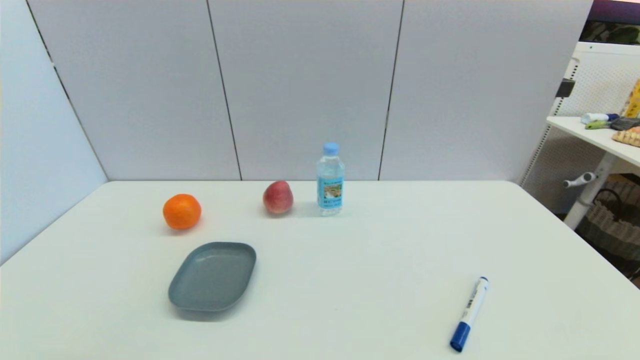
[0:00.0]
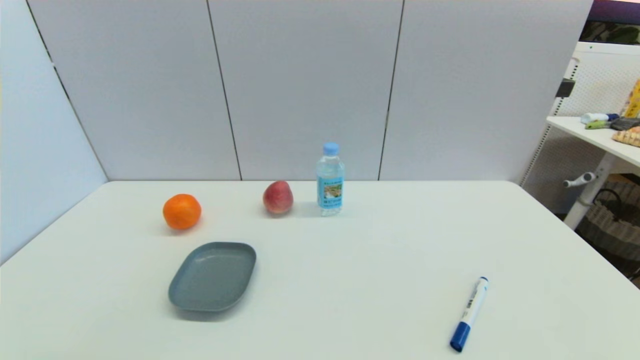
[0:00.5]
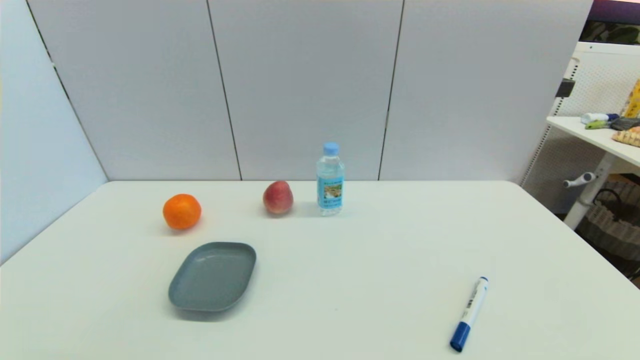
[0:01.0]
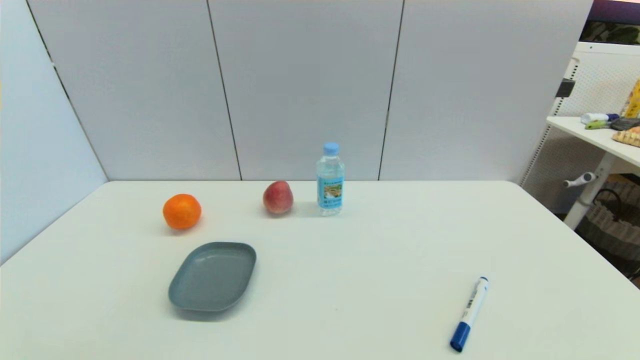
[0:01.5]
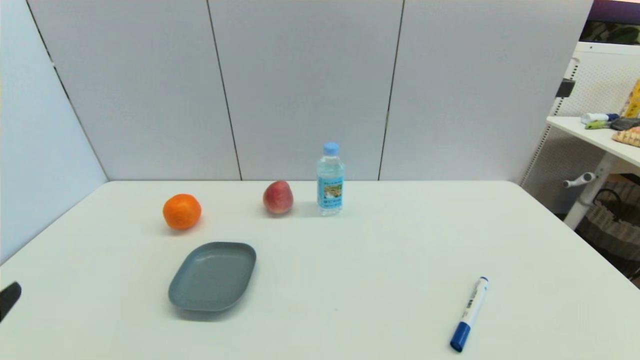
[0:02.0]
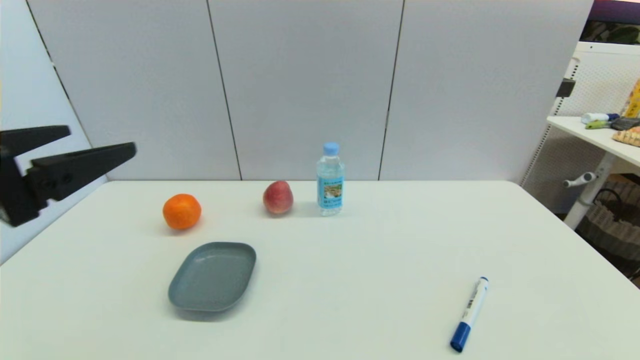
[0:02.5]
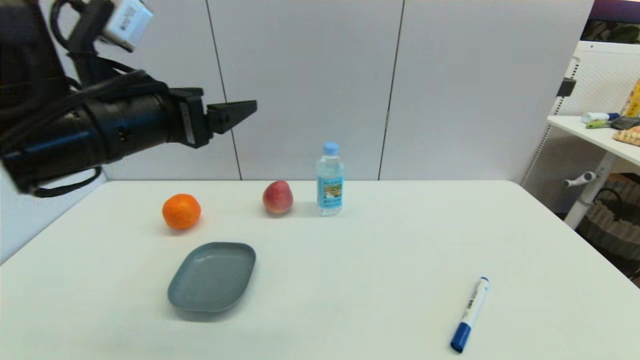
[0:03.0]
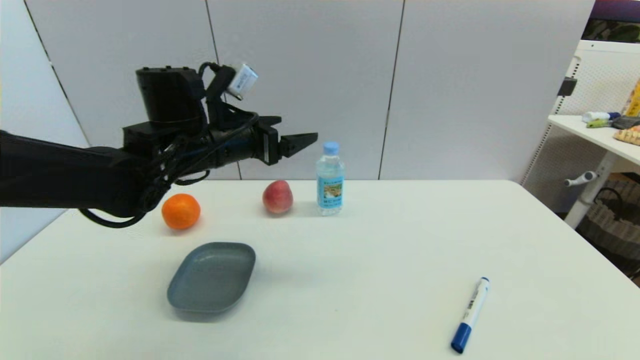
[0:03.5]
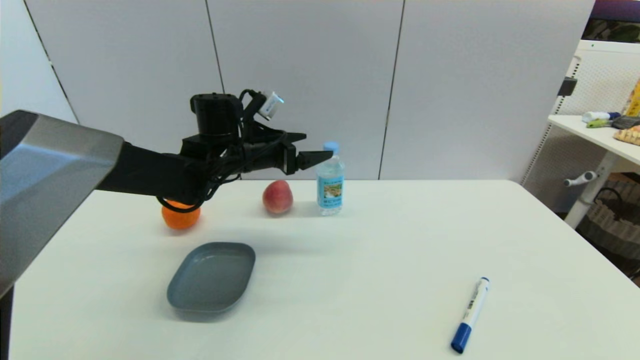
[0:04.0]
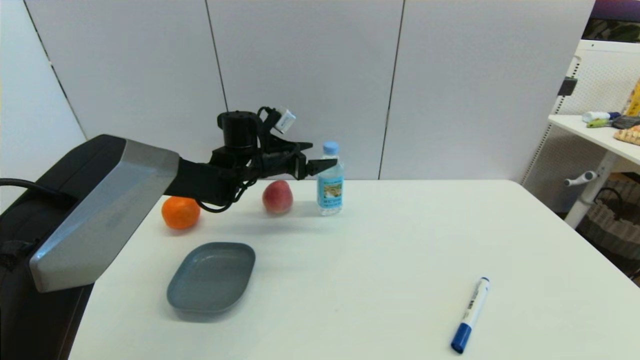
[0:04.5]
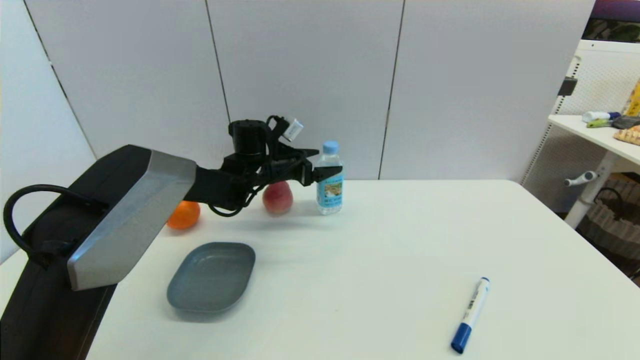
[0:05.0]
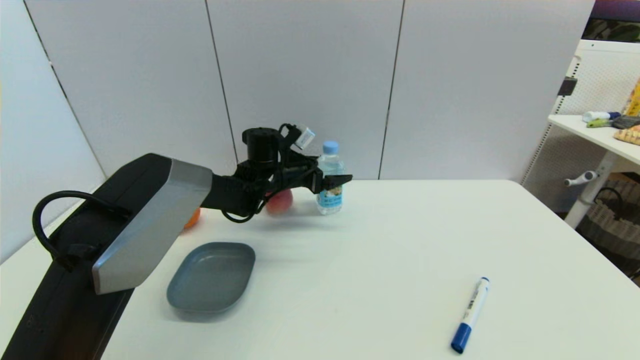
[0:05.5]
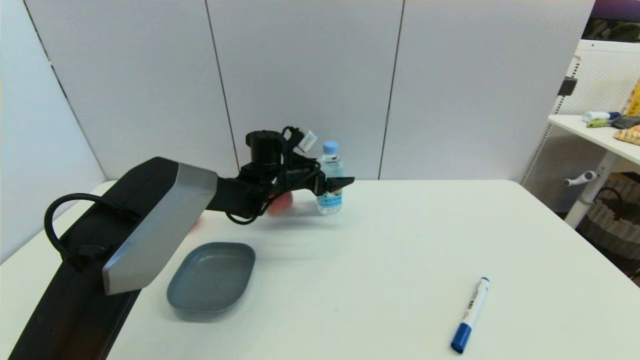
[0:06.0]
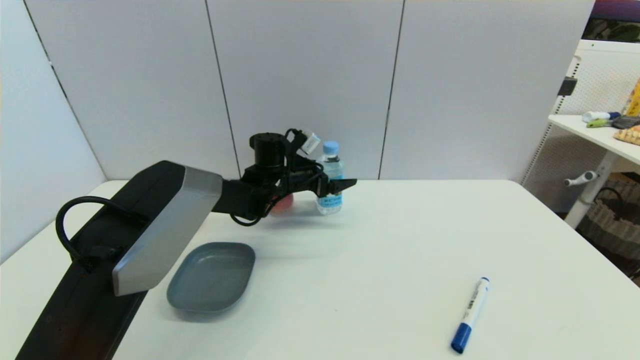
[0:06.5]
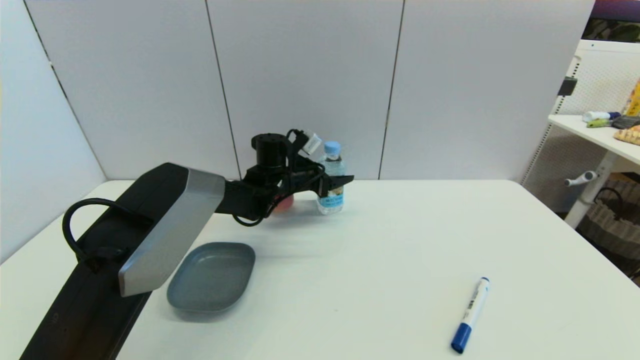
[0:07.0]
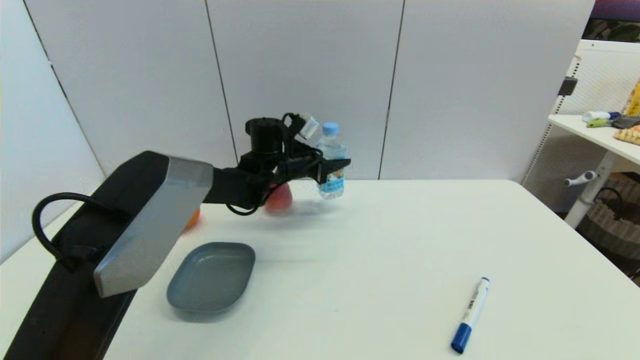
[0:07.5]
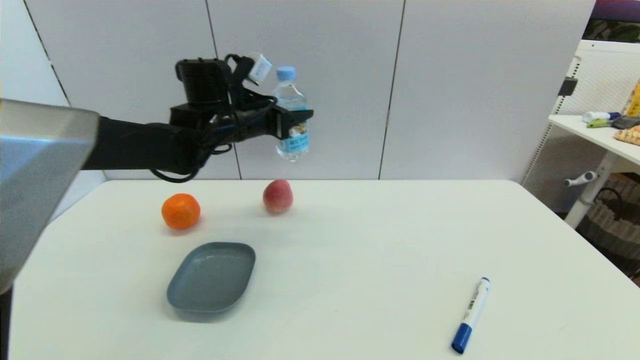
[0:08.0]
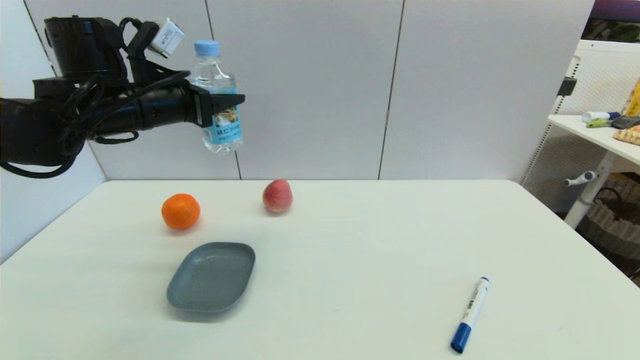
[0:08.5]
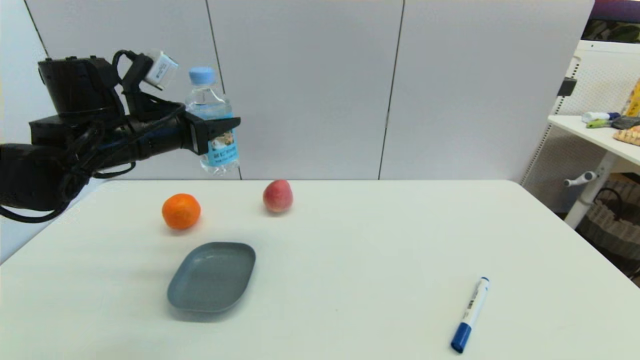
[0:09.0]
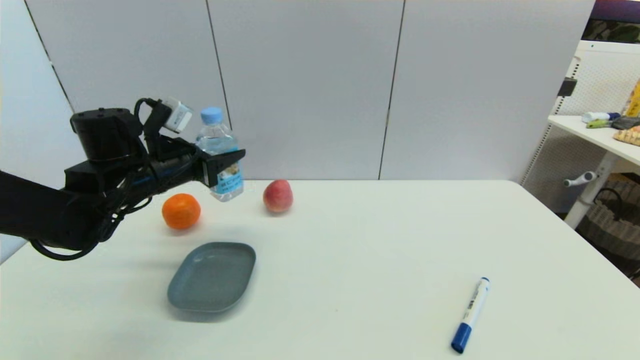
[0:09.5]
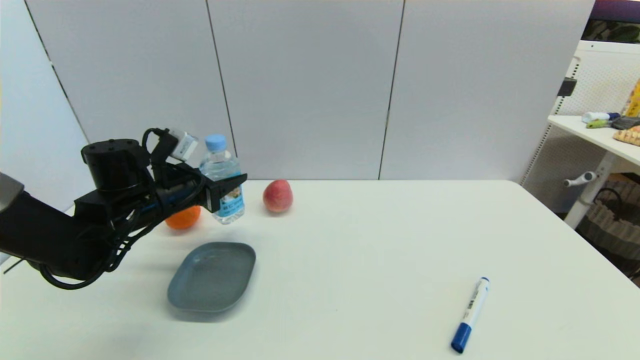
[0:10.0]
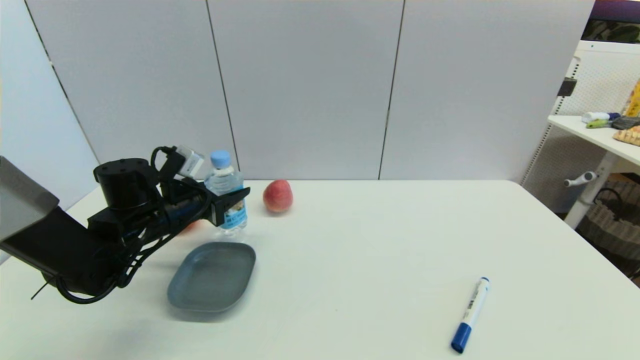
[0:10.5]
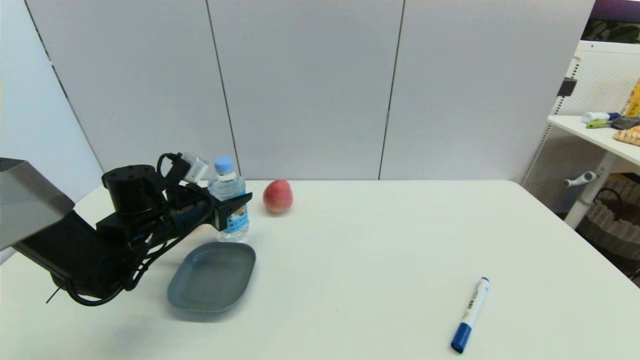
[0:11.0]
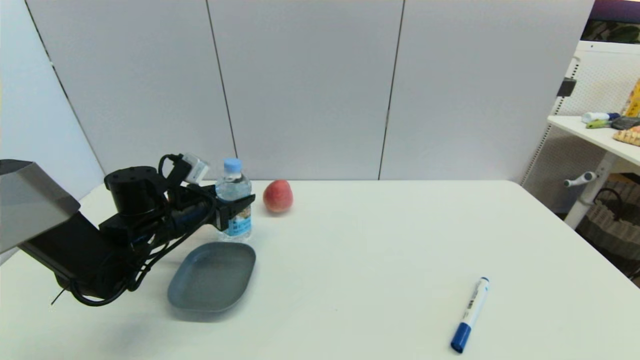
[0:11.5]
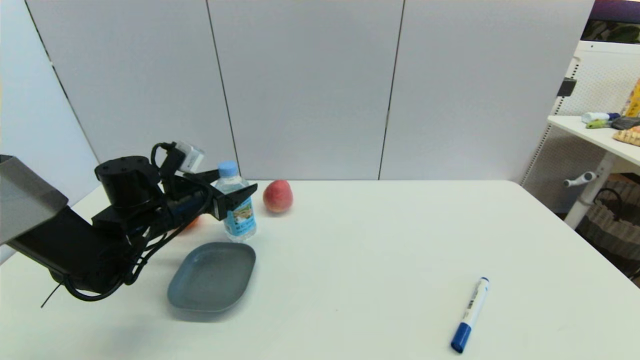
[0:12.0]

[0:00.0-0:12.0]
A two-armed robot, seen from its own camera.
Step, 0:02.0 to 0:07.0: Grasp the soda water with left gripper.
Step, 0:07.5 to 0:11.5: Place the soda water on the table with left gripper.
0:02.0 to 0:04.0: The left gripper travels forward and to the right by about 40 cm.
0:04.0 to 0:06.0: The left gripper moves downward, forward and to the right, approximately 10 cm.
0:06.0 to 0:08.0: The left gripper heads upward, to the left and backward, covering approximately 15 cm, and closes its fingers.
0:08.0 to 0:10.0: The left gripper goes some 15 cm downward, to the left and backward.
0:10.0 to 0:12.0: The left gripper opens.

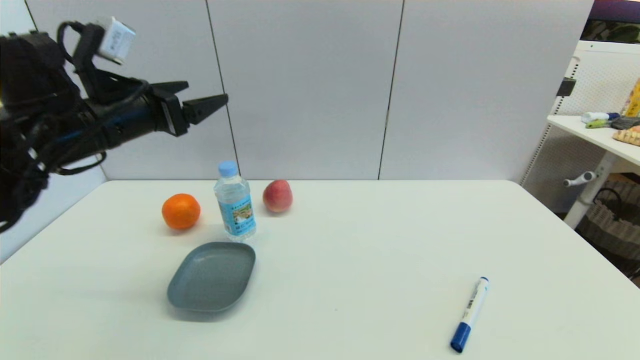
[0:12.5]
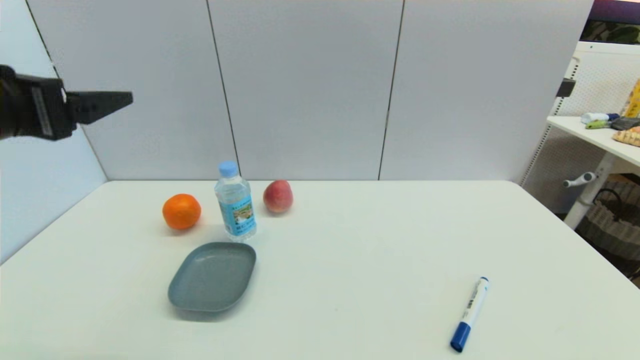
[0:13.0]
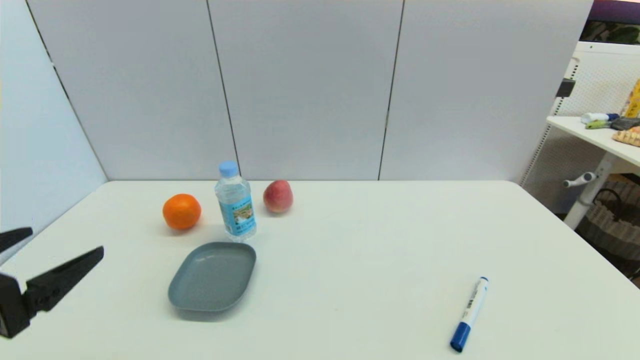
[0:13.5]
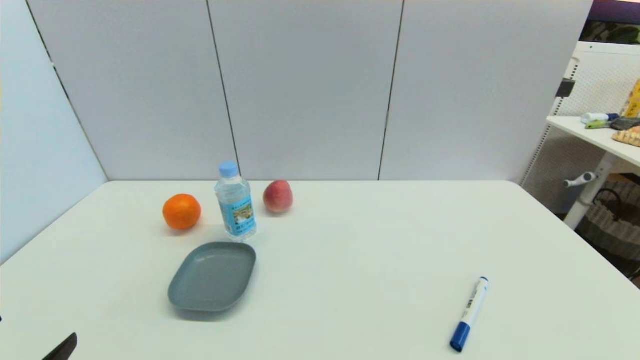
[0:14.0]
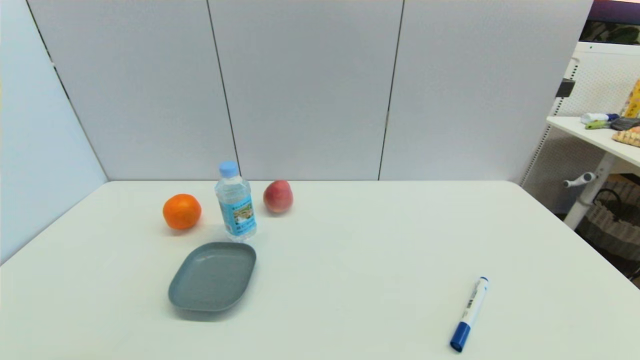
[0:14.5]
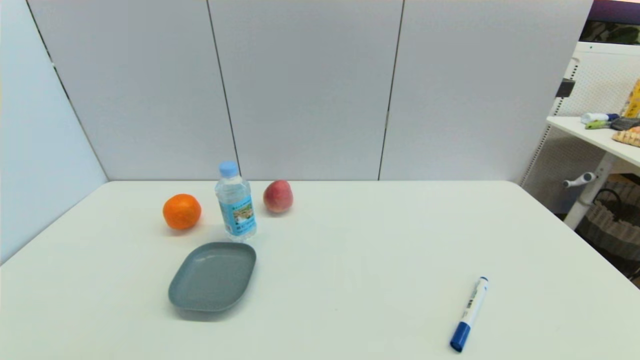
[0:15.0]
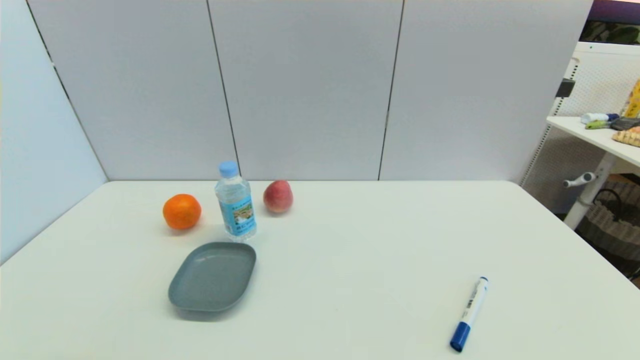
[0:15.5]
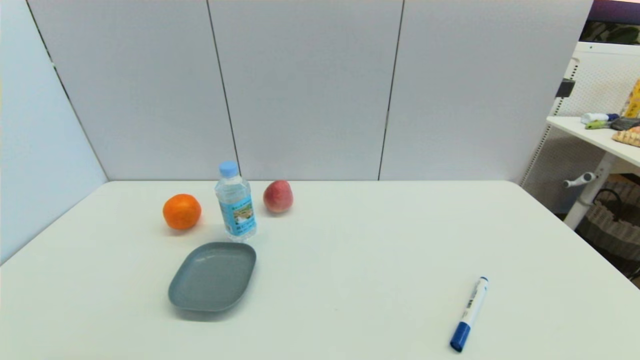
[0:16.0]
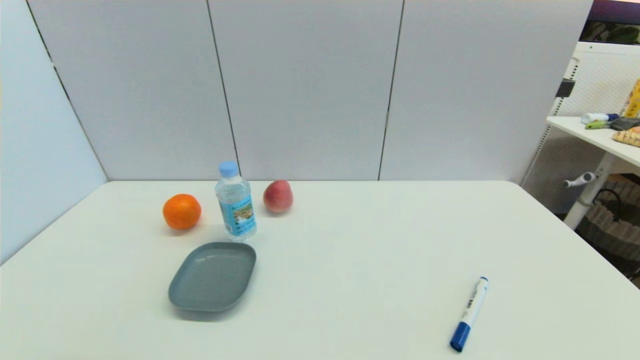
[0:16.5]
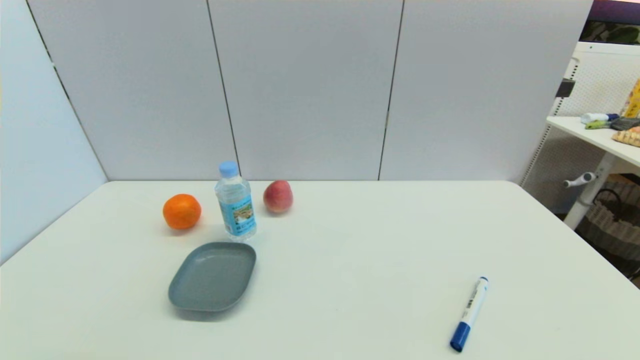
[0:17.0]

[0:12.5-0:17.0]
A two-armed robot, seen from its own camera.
0:12.5 to 0:14.5: The left gripper moves backward and downward, roughly 35 cm.
